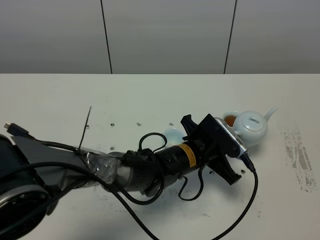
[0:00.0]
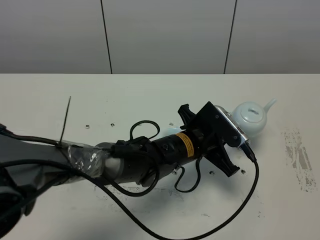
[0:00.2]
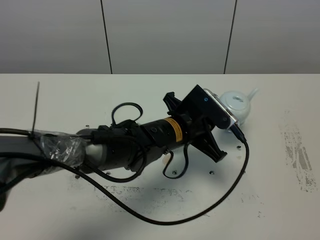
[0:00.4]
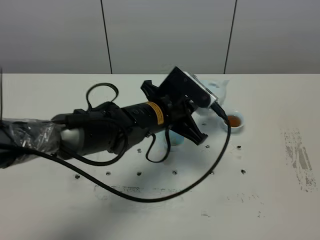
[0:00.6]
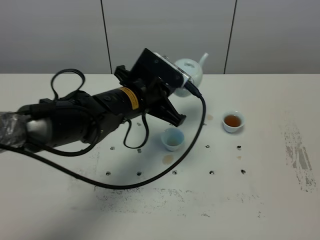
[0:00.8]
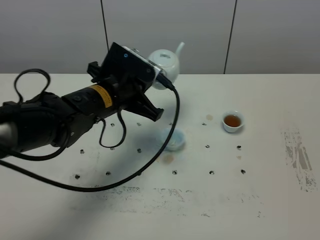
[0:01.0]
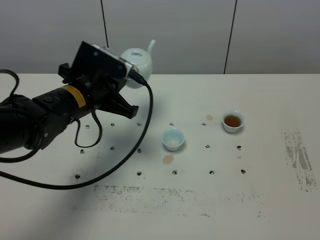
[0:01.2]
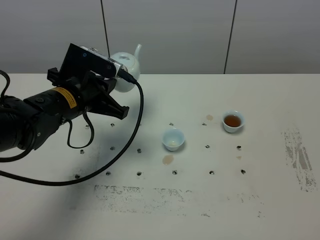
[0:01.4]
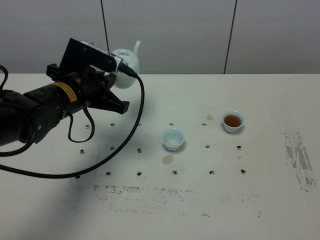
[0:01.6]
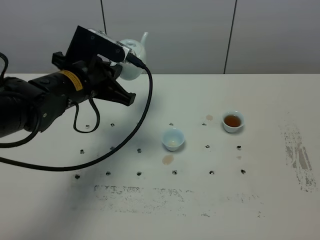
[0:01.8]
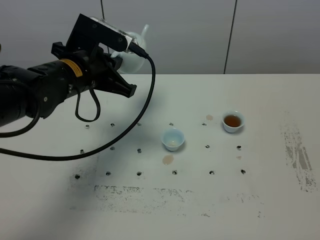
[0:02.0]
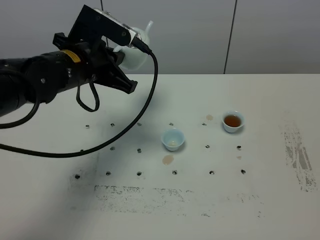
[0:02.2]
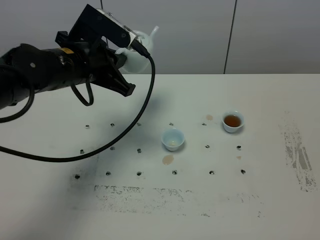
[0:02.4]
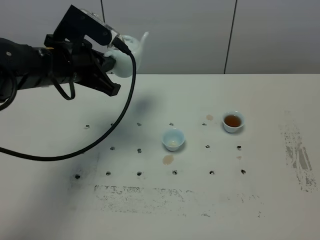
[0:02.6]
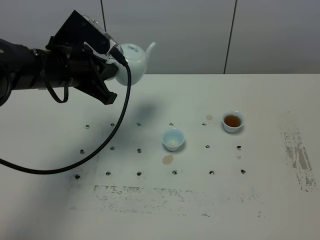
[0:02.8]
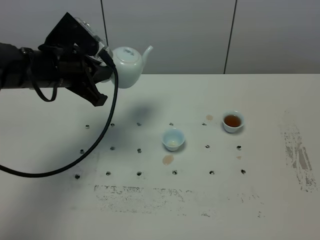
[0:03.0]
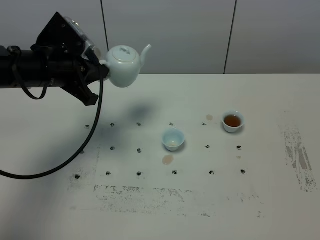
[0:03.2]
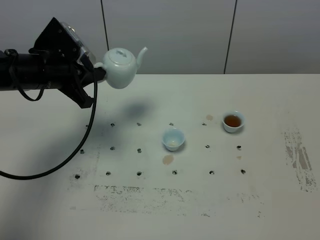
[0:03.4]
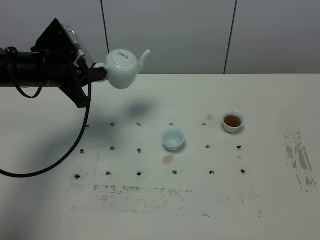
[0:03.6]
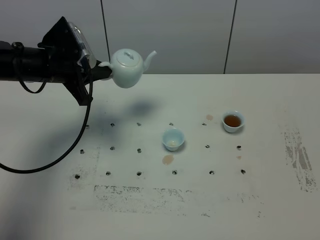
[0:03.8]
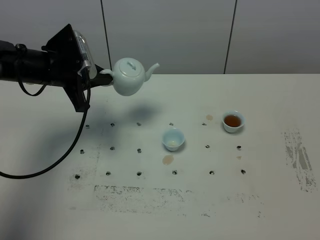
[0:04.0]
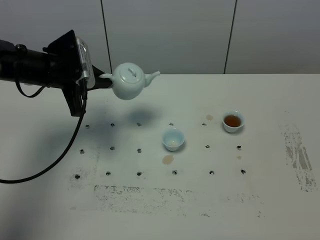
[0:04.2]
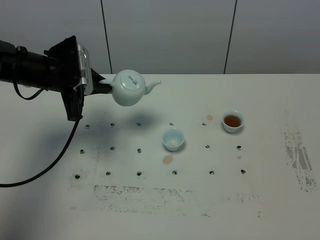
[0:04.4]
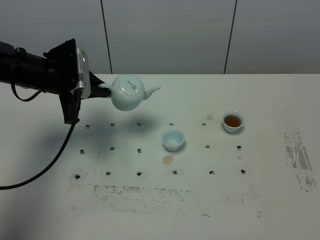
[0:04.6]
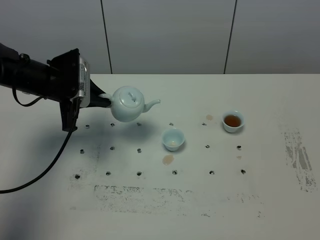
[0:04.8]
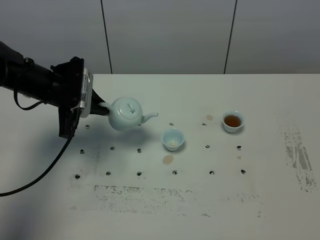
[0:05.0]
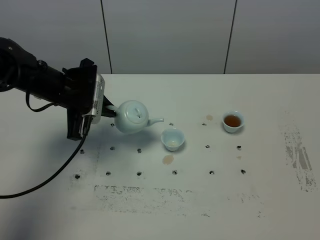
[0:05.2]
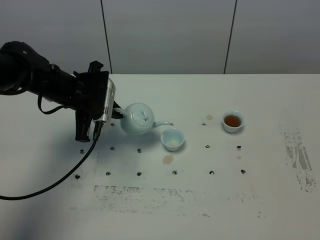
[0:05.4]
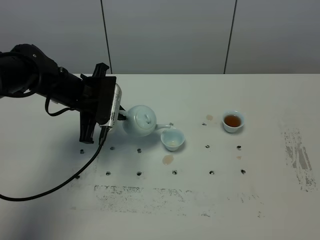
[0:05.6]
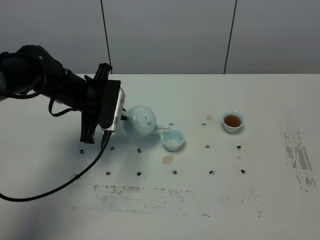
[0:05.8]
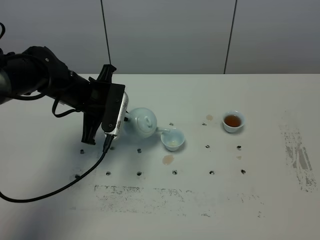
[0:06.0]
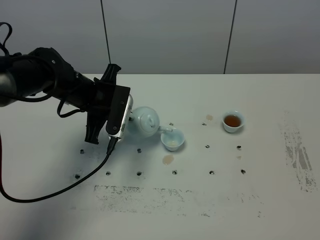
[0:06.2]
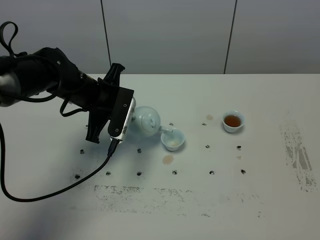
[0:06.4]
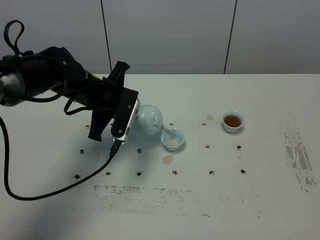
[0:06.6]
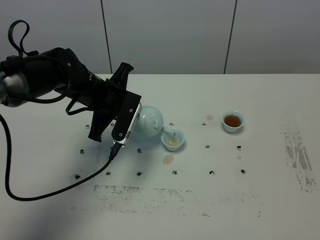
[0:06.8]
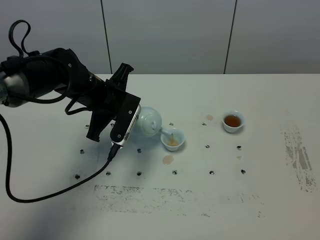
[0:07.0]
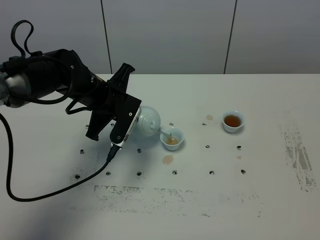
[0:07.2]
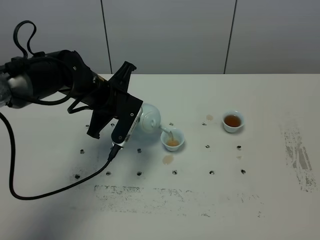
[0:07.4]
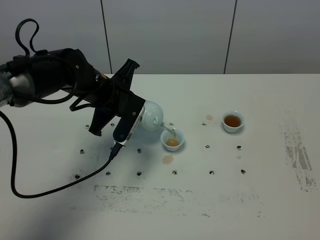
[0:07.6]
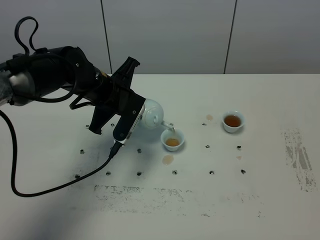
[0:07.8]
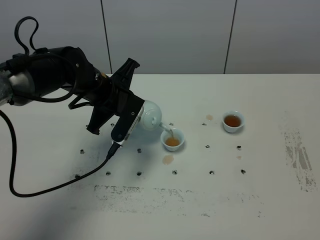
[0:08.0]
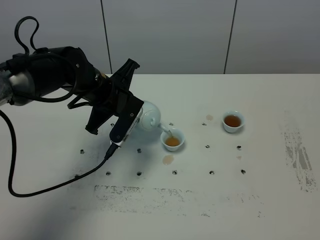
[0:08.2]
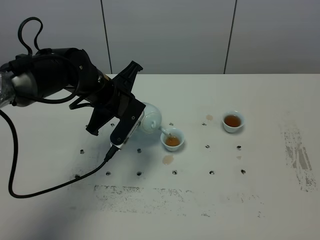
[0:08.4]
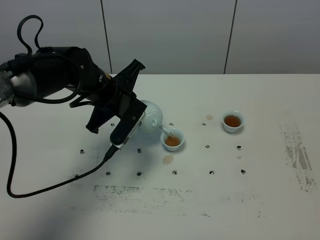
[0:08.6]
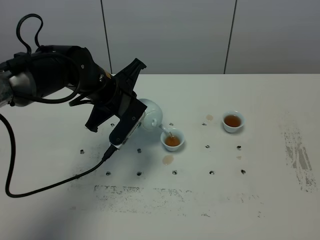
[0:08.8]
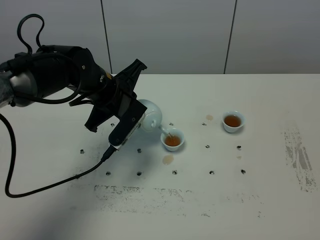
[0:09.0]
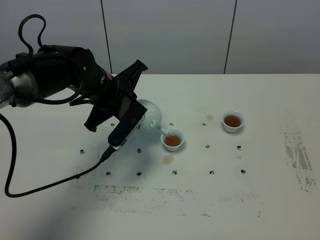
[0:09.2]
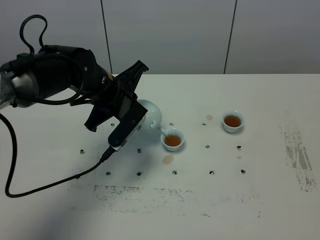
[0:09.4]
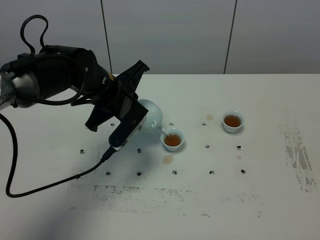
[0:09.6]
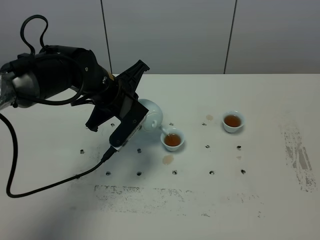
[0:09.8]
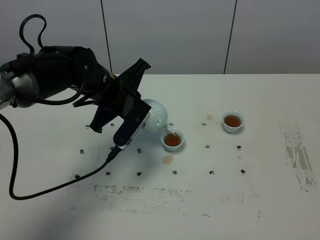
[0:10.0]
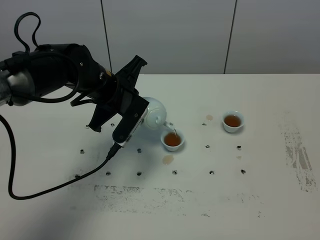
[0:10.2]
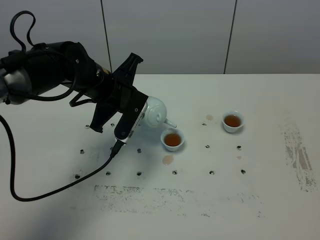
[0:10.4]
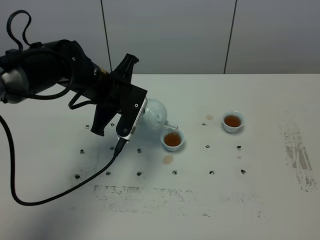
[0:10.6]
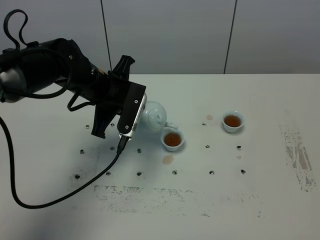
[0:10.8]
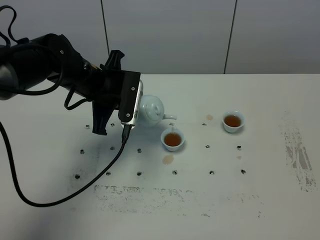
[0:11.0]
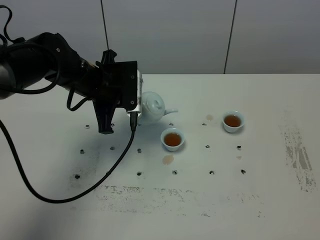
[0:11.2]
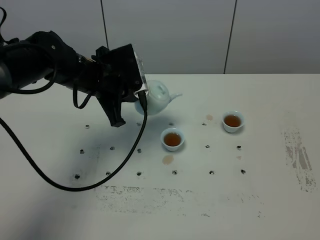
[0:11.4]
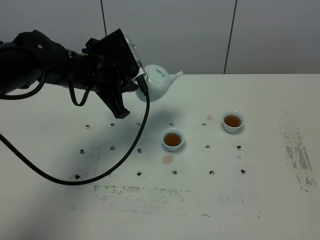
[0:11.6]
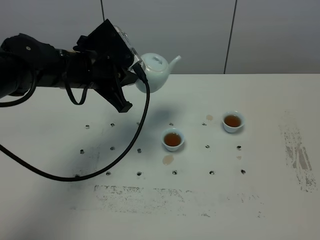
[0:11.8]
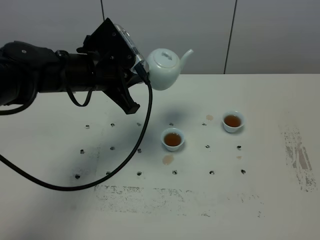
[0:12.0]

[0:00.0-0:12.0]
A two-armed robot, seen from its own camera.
Task of the whole recording: grasp the blue porcelain teapot and pour the tea into the two blue porcelain teacups one by one, put the blue porcelain teapot back in its original place.
Step, 0:00.0 to 0:10.6: Pour tea into the teacup with the left gripper.
0:00.0 to 0:01.6: The left gripper is displaced to the left and upward by approximately 25 cm.
0:01.6 to 0:03.0: The left gripper changes place by some 5 cm.
0:03.0 to 0:04.4: The left gripper changes place by some 5 cm.
0:04.4 to 0:06.0: The left gripper travels to the right by some 5 cm.
0:07.6 to 0:10.4: The grippers make only small movements.
0:10.4 to 0:12.0: The left gripper shifts by approximately 5 cm.

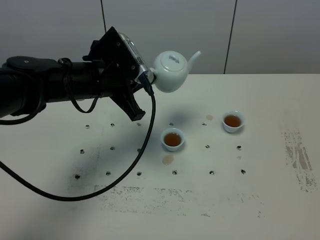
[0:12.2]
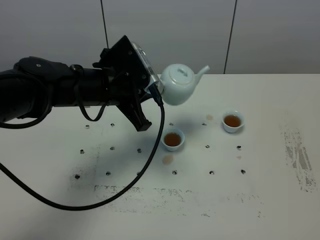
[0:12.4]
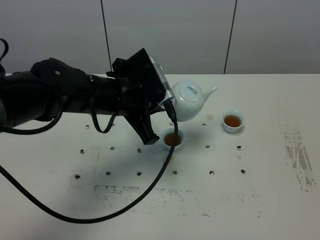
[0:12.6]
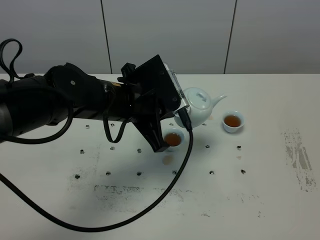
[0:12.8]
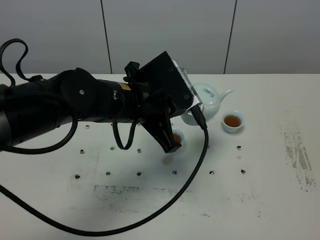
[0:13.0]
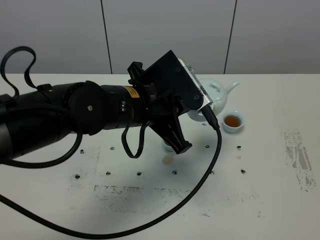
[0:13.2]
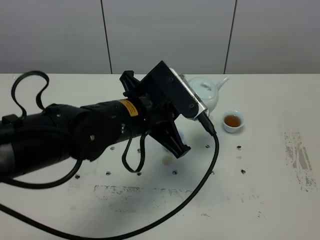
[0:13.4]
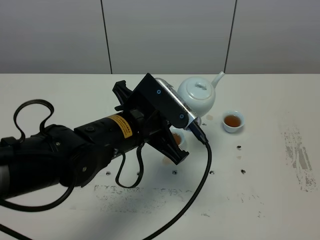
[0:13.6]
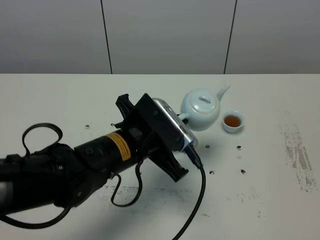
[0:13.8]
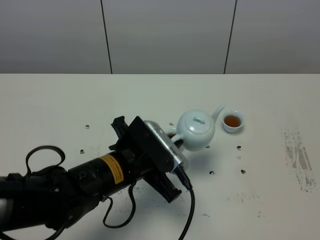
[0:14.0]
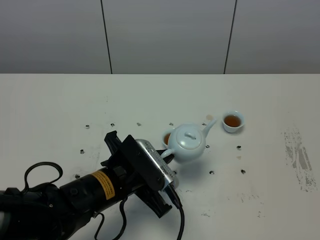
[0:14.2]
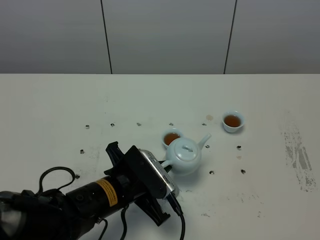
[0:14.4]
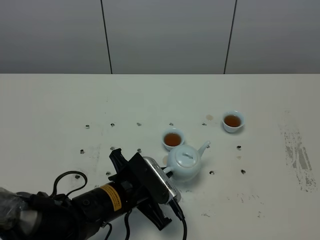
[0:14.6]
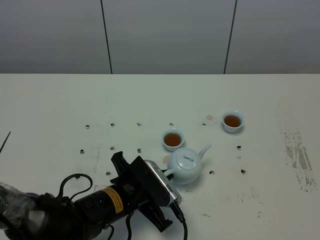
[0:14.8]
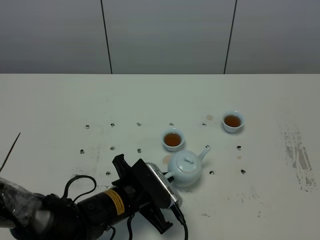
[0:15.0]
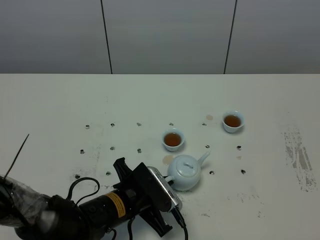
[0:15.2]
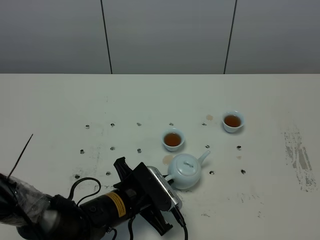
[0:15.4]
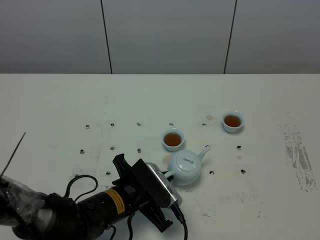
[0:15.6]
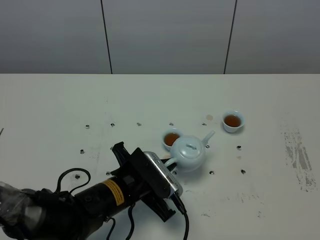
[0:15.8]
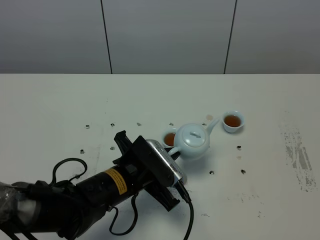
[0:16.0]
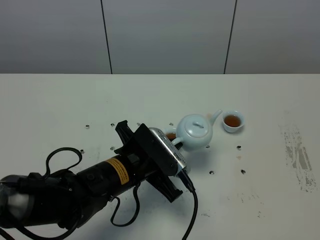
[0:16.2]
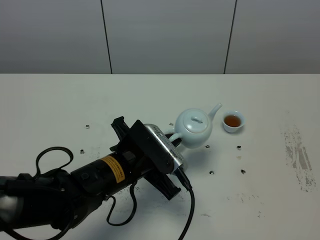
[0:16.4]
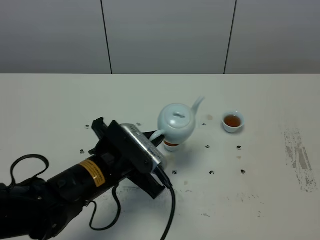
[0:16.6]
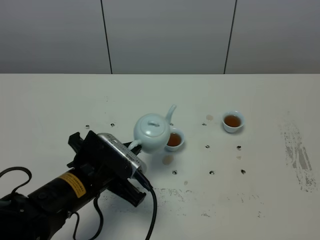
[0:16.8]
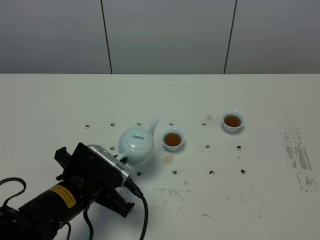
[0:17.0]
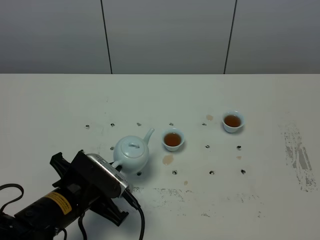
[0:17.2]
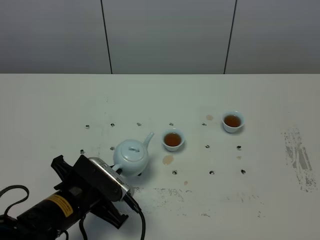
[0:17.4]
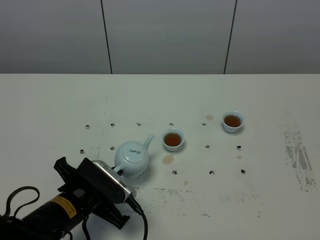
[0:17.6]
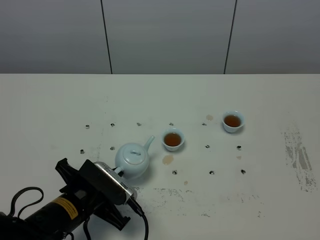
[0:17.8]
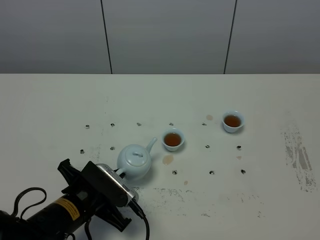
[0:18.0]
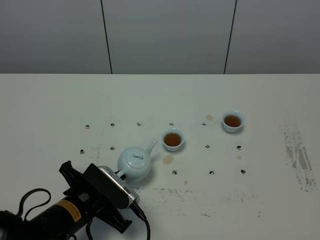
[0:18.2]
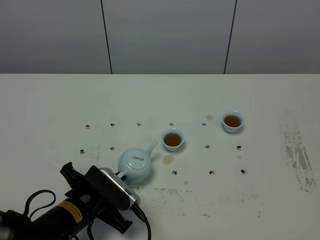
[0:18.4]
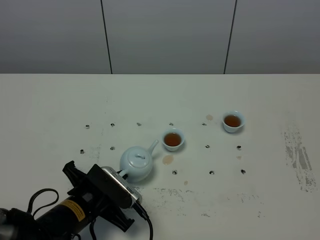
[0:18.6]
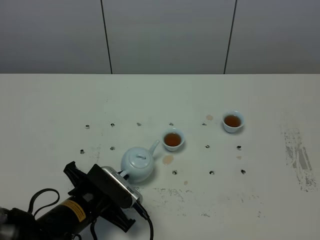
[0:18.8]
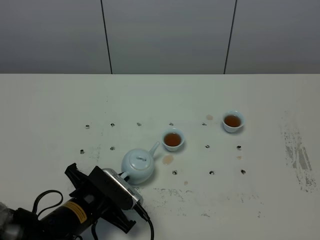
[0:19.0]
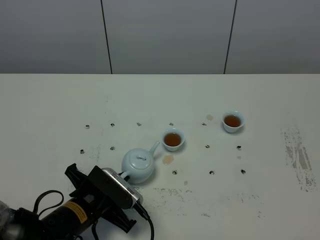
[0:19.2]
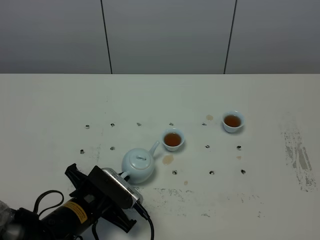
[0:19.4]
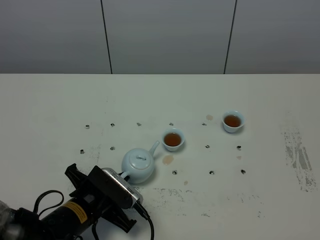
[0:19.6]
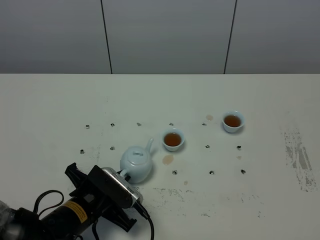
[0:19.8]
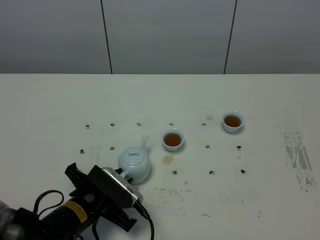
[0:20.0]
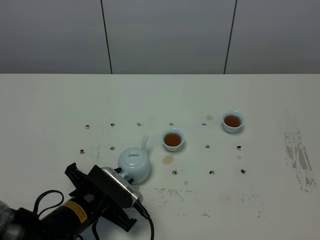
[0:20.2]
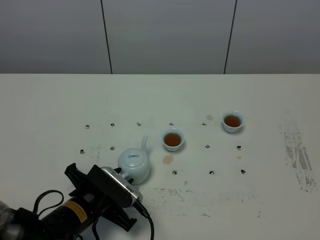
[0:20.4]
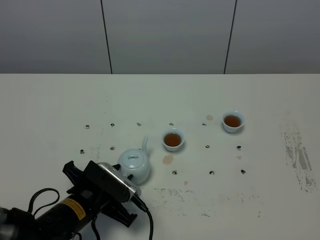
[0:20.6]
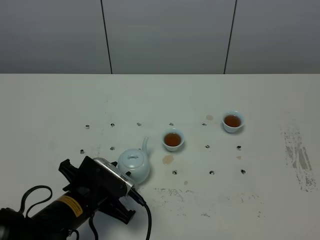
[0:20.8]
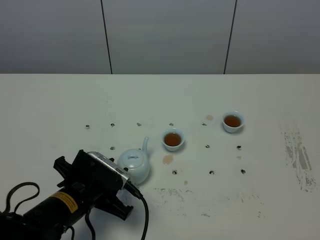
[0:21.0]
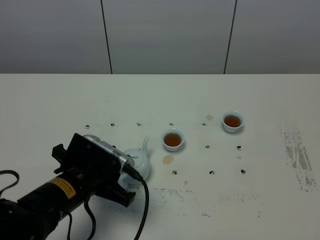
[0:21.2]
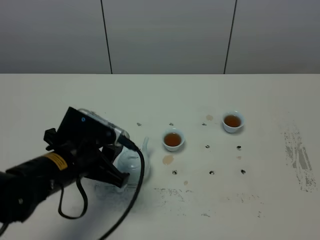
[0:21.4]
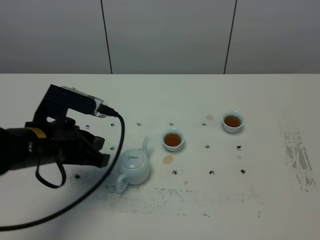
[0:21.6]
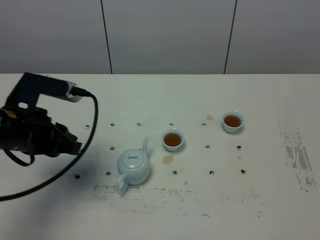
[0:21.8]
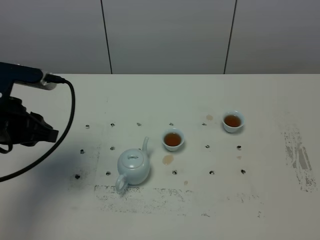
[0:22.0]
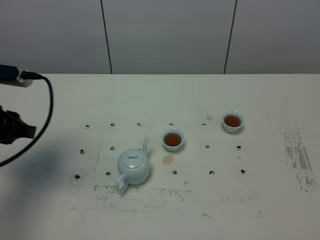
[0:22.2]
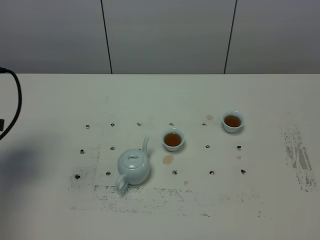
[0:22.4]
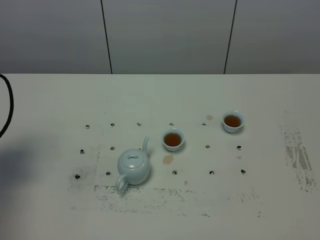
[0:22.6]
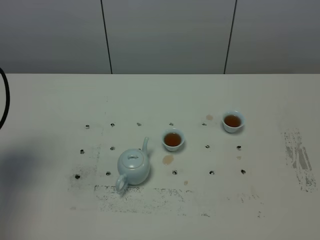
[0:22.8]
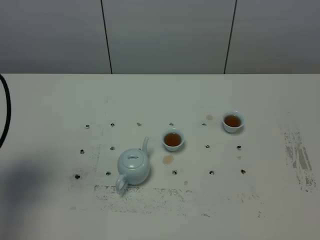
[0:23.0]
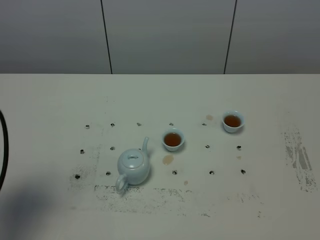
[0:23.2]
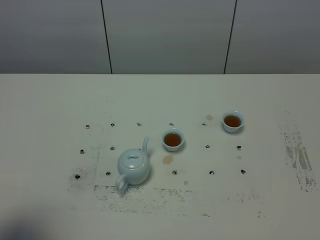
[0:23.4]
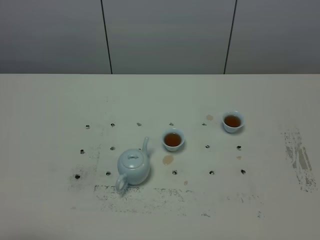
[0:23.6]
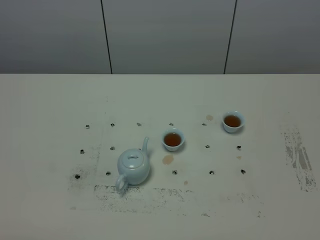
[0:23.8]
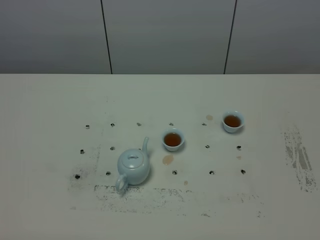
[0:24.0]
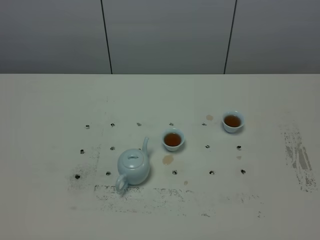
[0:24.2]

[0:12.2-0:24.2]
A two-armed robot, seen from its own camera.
Task of the whole recording: grasp the blue porcelain teapot and pour the tea into the two blue porcelain teacups one by one, put the blue porcelain teapot back in its original place.
0:12.2 to 0:13.8: The left gripper moves backward and to the right, about 15 cm.
0:13.8 to 0:15.2: The left gripper is displaced downward by some 15 cm.
0:15.2 to 0:16.6: The left gripper is displaced upward by approximately 10 cm.
0:16.6 to 0:18.2: The left gripper goes approximately 10 cm downward.
0:18.2 to 0:19.8: The grippers stay close to where they were, moving slightly.
0:19.8 to 0:21.2: The left gripper travels upward by about 10 cm.
0:21.2 to 0:22.6: The left gripper travels to the left and upward by approximately 25 cm.
0:22.6 to 0:24.2: The left gripper moves backward, about 25 cm.
